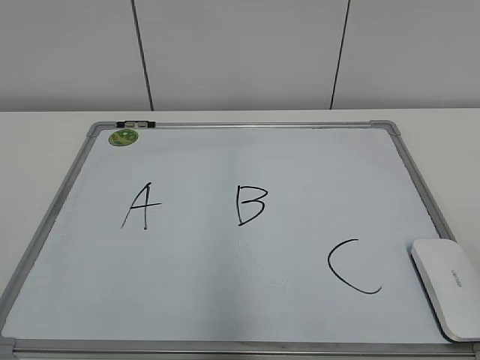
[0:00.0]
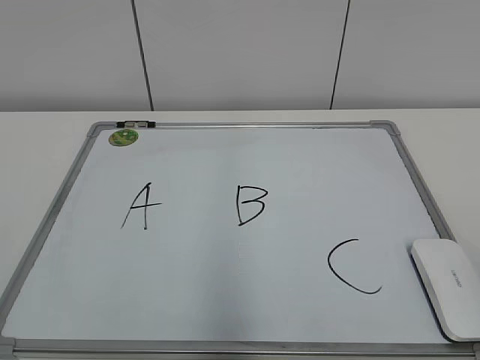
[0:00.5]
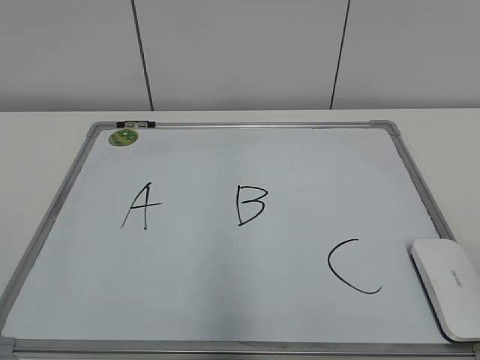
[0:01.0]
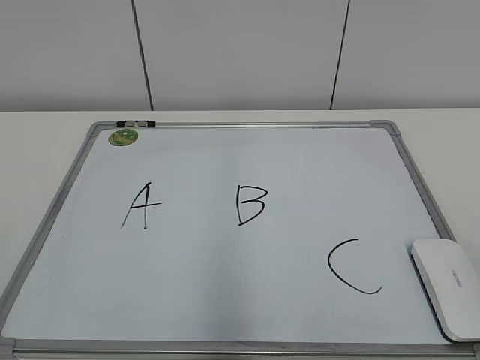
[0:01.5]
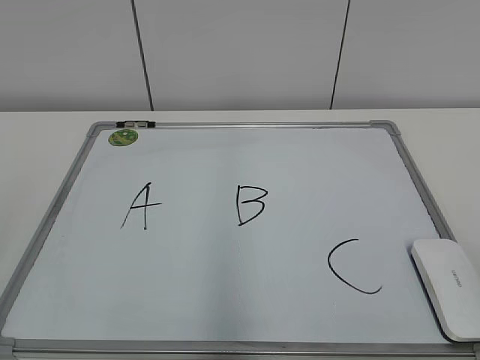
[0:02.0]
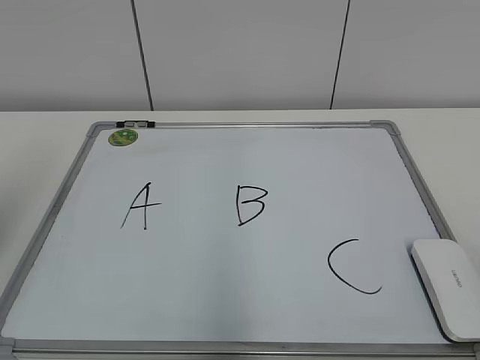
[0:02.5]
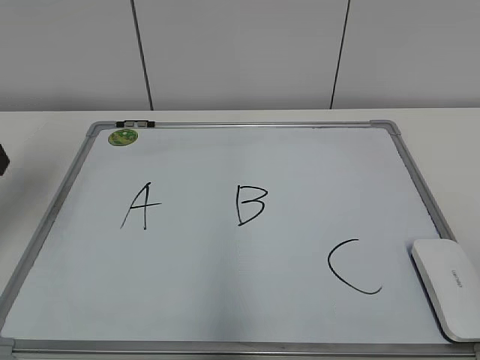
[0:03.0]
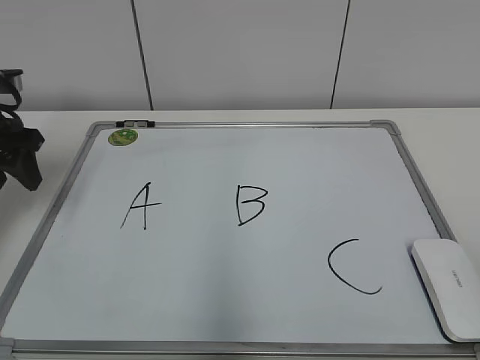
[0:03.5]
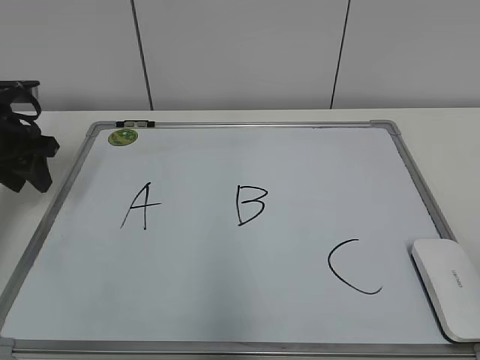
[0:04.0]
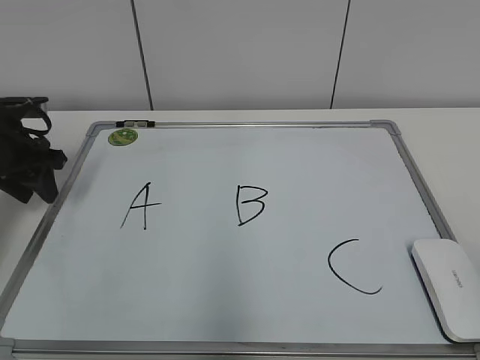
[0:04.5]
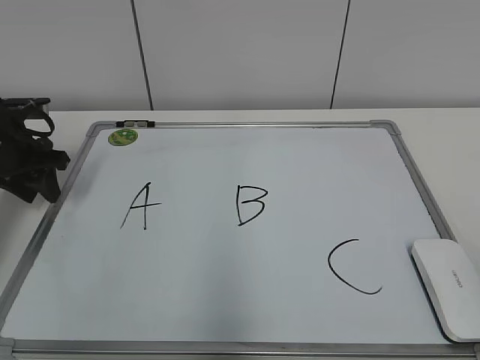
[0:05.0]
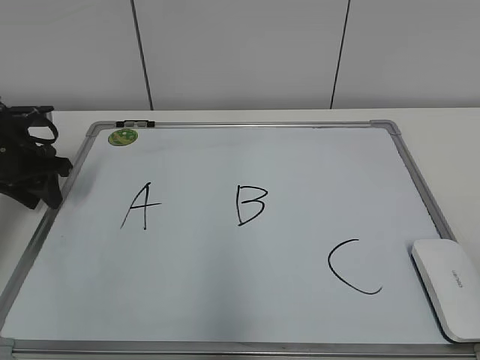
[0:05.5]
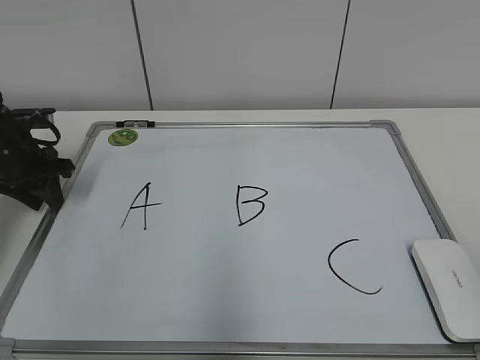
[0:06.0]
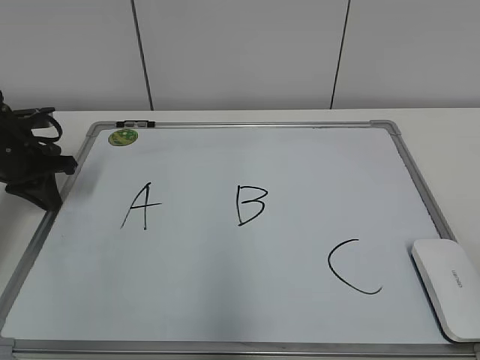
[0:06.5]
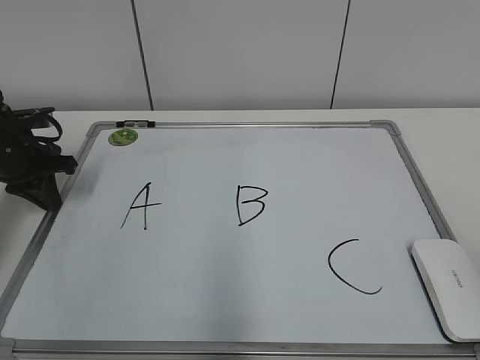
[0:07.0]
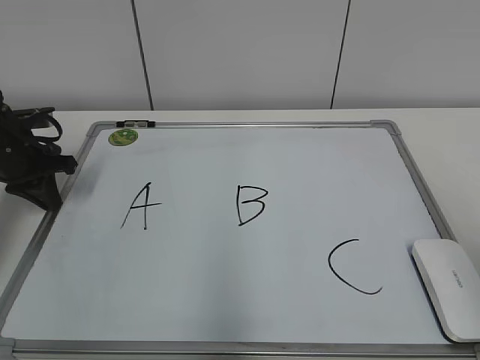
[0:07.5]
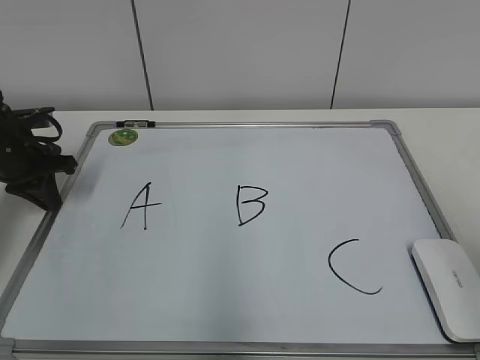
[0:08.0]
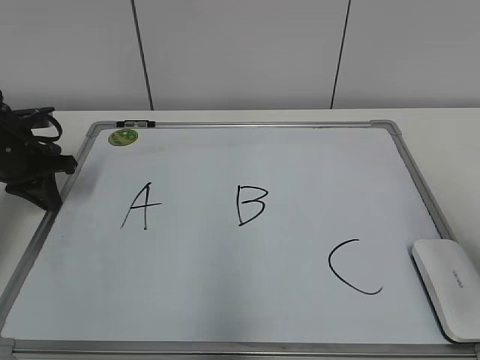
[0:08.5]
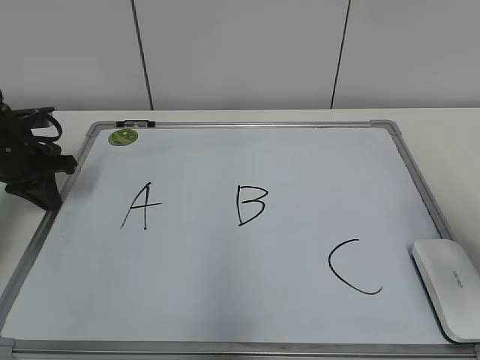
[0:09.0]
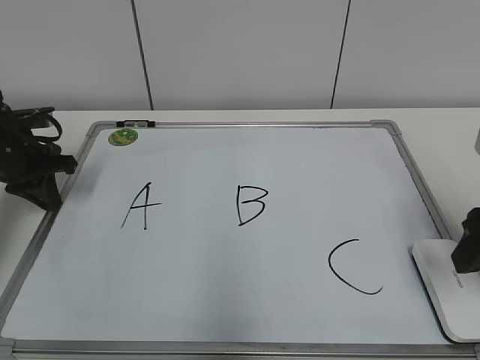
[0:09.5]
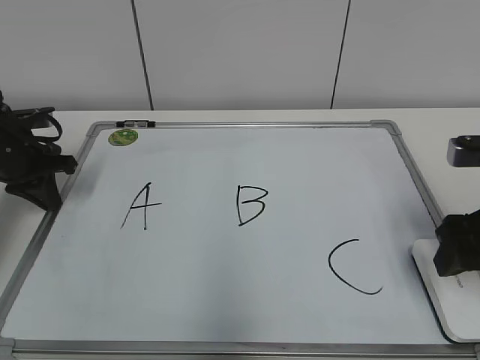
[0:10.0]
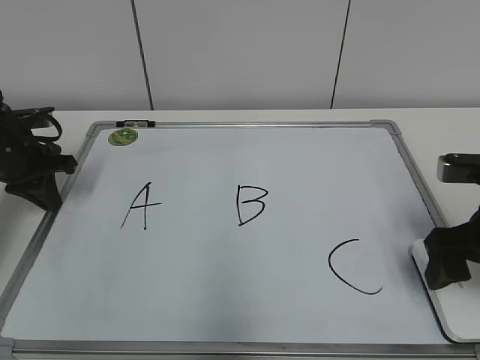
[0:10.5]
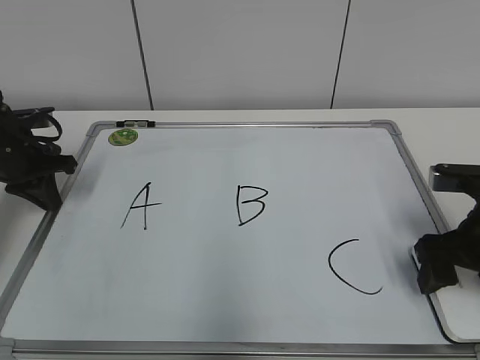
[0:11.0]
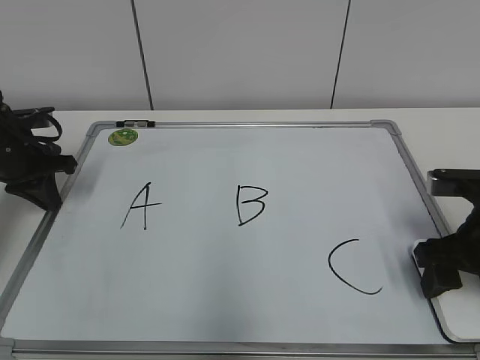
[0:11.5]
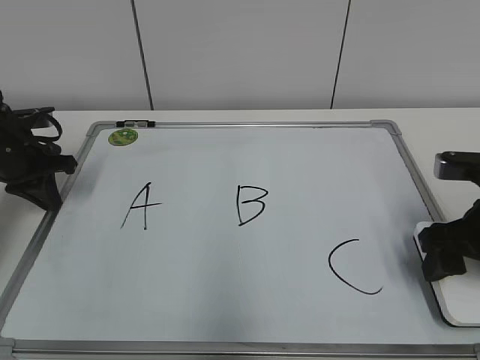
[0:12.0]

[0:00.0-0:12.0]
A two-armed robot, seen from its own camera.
Task of the whole recording: pick up the eraser on the blackboard and erase the letter "B".
Step, 0:00.0 to 0:06.0: Hold the drawing board steady with your left hand.
Step, 0:06.5 to 0:11.5: Grab the eraser with your right hand.
0:02.0 to 0:04.0: The left gripper is displaced forward by roughly 35 cm, and closes.
0:04.0 to 0:06.0: The left gripper travels downward by roughly 5 cm.
0:06.0 to 0:08.0: The left gripper closes up.
0:08.0 to 0:10.0: The right gripper goes about 15 cm forward and downward.
0:10.0 to 0:12.0: The right gripper closes its fingers.

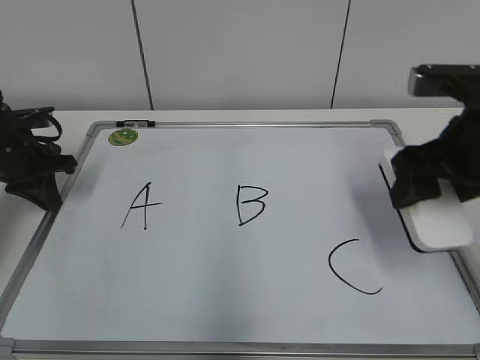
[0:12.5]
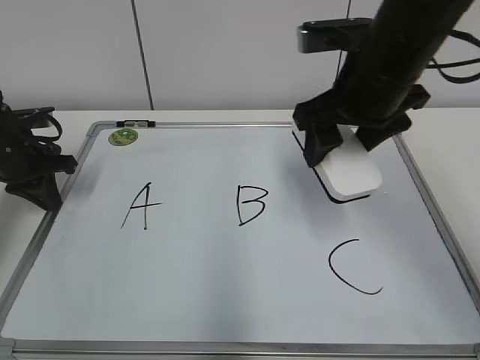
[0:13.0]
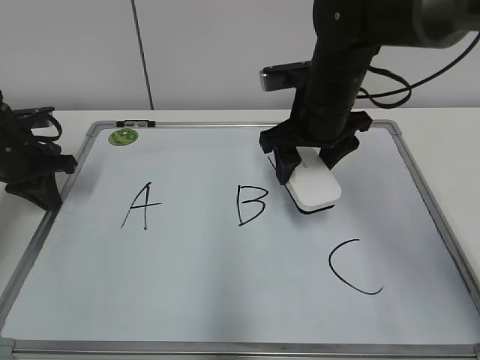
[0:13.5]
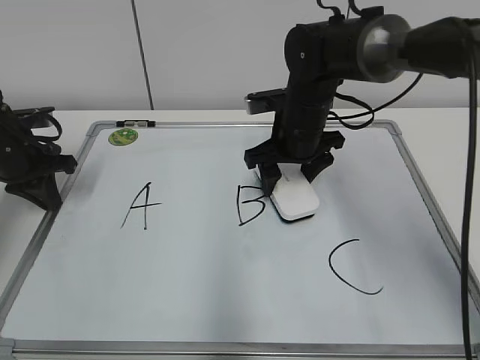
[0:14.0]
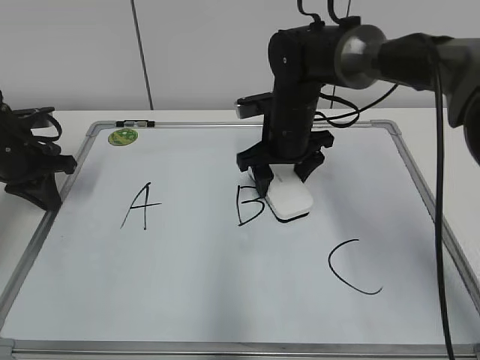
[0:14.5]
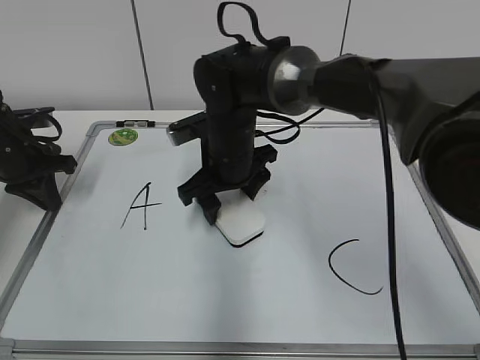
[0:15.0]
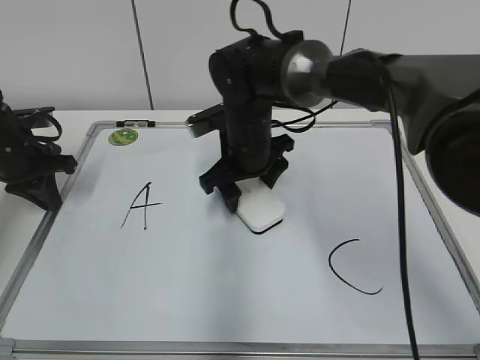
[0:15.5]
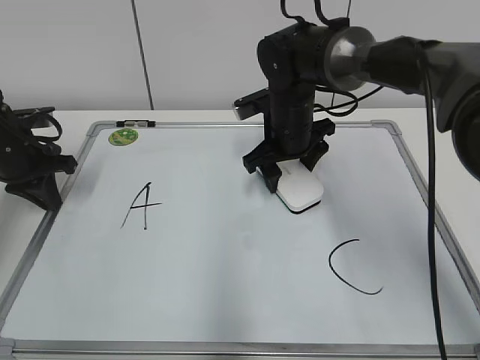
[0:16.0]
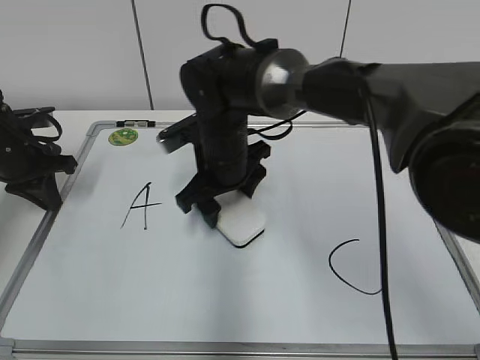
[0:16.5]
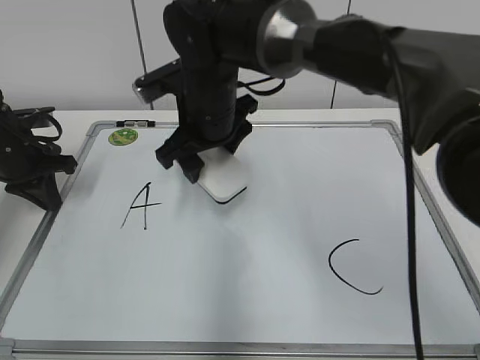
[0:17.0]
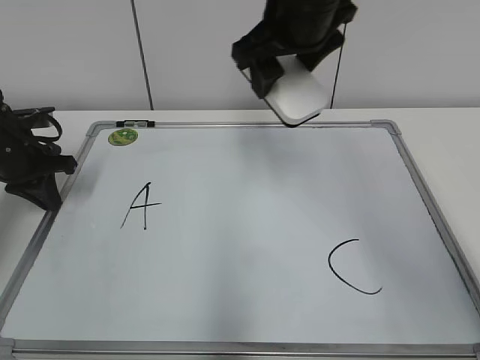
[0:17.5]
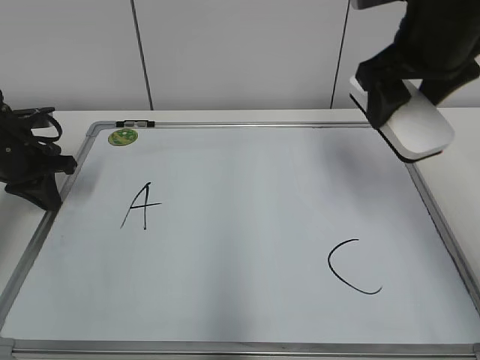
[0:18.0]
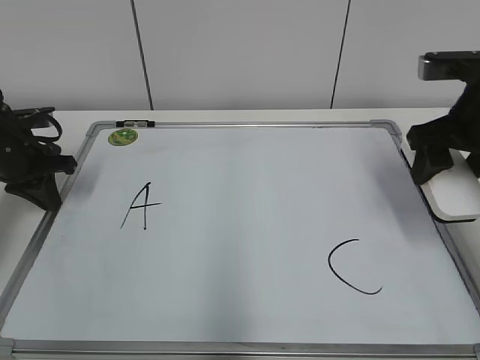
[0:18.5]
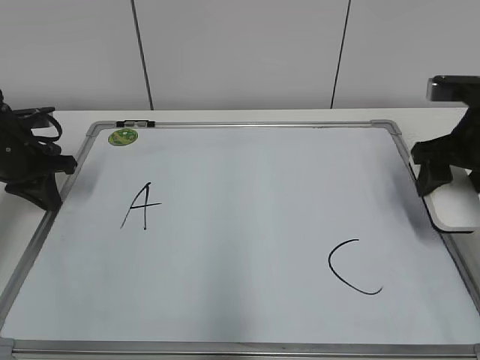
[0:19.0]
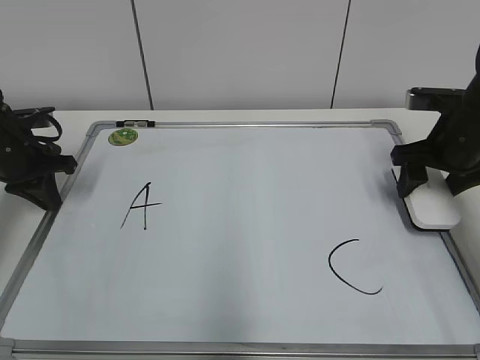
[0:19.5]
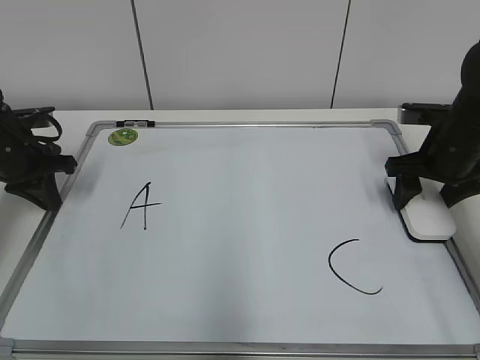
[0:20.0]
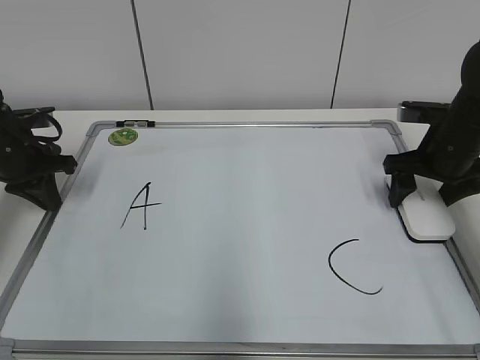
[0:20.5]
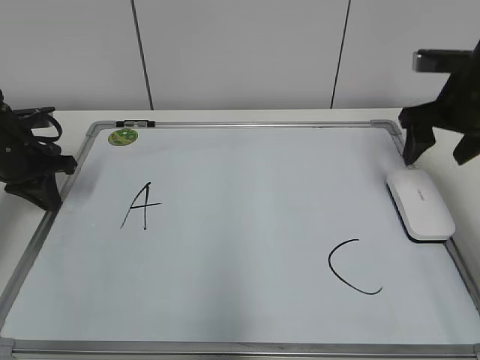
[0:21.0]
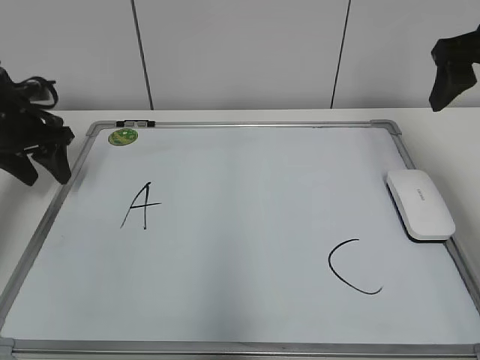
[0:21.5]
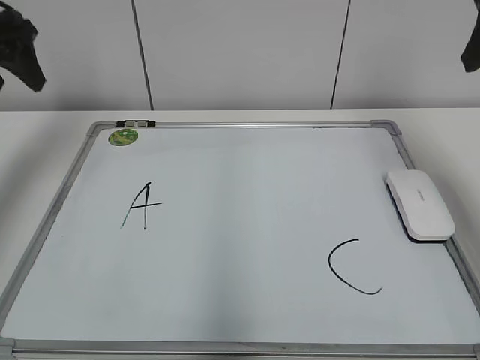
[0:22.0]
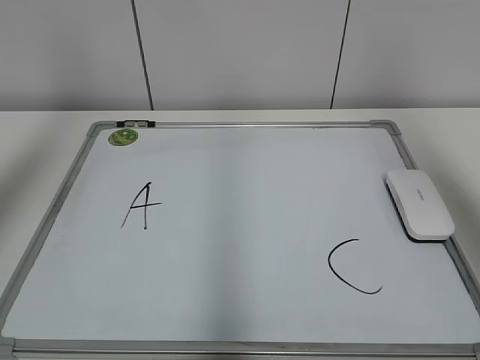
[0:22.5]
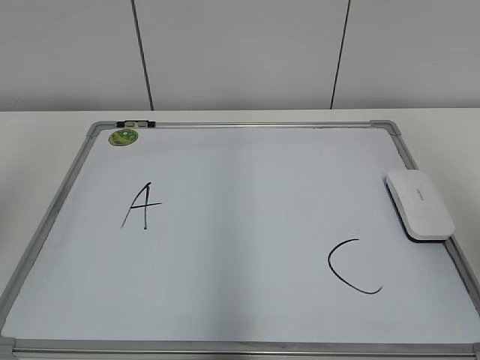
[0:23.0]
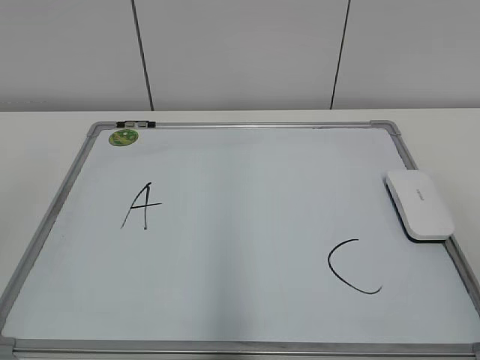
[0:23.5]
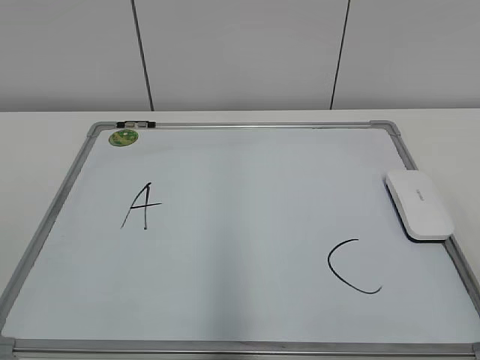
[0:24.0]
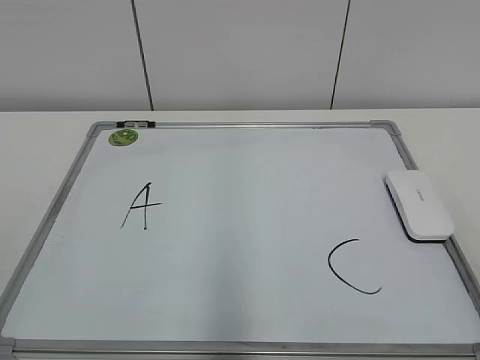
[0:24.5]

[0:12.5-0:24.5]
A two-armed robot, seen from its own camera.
Task of the whole recording: pick up the eraser on the blackboard and erase the letter "B".
Step, 0:12.5 to 0:16.5: Erase the letter B with your right hand.
Step, 0:17.0 to 0:20.5: Put down the eraser with your right hand.
0:12.5 to 0:14.5: The right gripper moves forward, to the left and downward, roughly 25 cm.
0:14.5 to 0:16.5: The right gripper goes left and right, about 10 cm each way, reversing 2 times.
0:16.5 to 0:18.5: The right gripper travels to the right by about 25 cm.
0:18.5 to 0:20.5: The right gripper shifts about 10 cm downward and forward, and opens its fingers.
0:20.5 to 0:22.5: The right gripper goes about 30 cm upward and backward; the left gripper is displaced upward by some 30 cm, and opens up.
0:22.5 to 0:24.5: The grippers both shift backward and downward by about 30 cm.

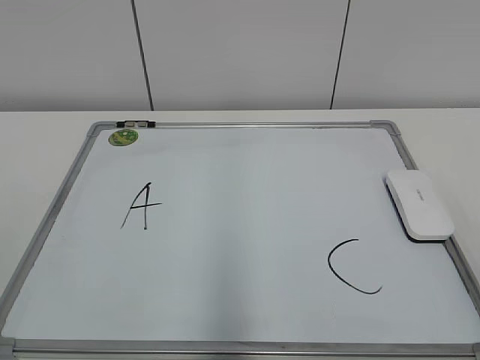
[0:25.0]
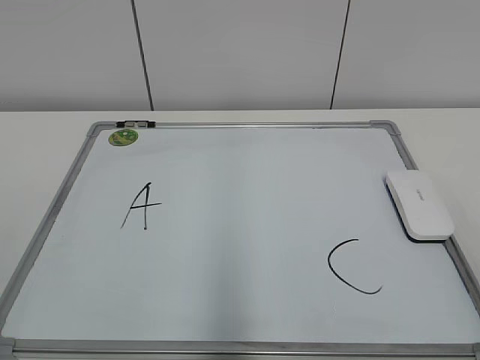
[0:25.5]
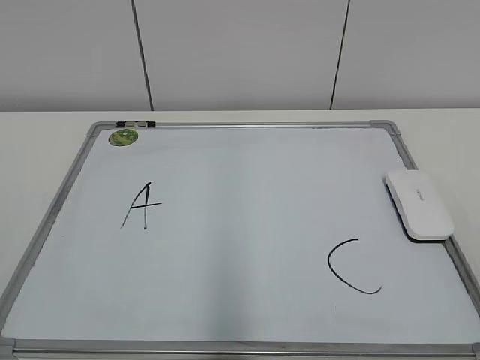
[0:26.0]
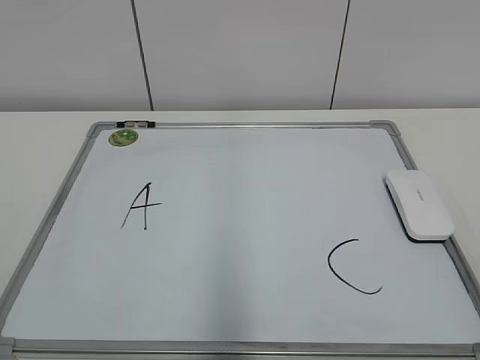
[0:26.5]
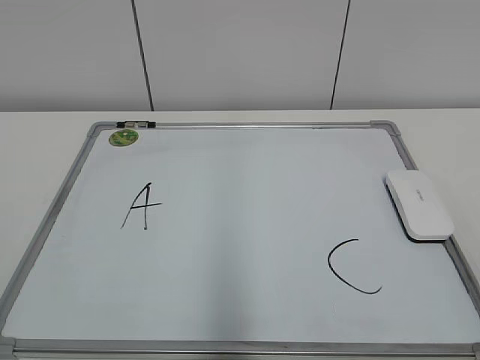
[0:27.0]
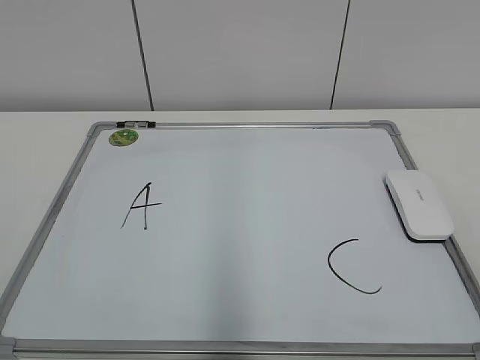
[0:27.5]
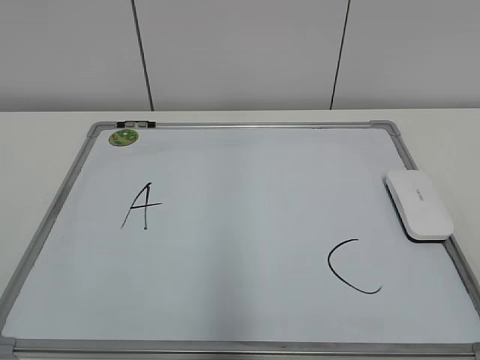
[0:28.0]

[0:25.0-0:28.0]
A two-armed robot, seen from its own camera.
Task of the whole recording: pick up the eraser on the blackboard and erase the letter "B".
0:26.5 to 0:28.0: Both grippers stay about where they are.
